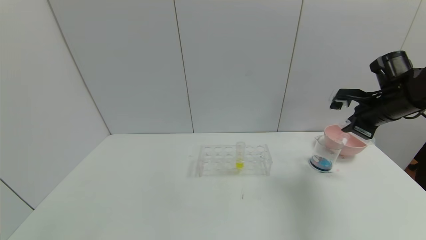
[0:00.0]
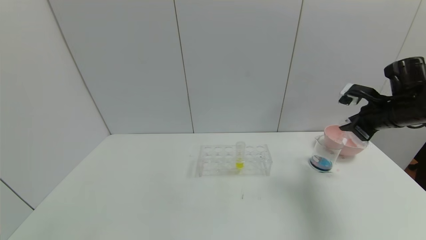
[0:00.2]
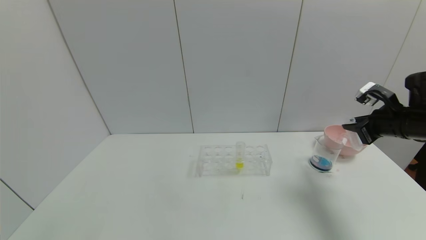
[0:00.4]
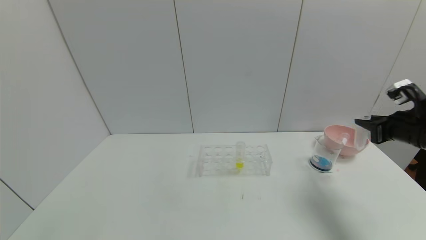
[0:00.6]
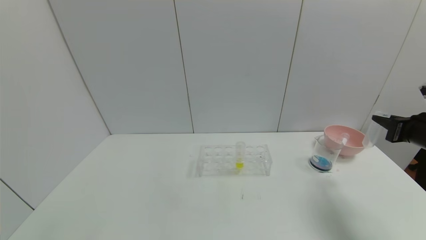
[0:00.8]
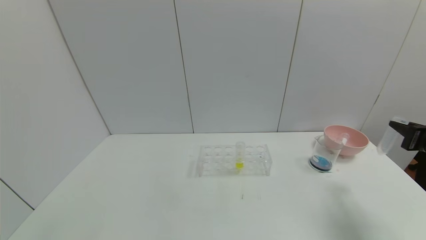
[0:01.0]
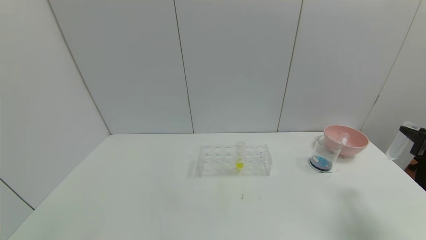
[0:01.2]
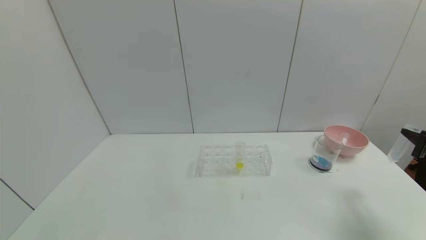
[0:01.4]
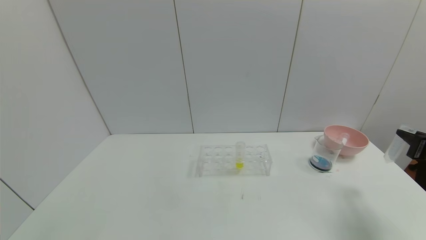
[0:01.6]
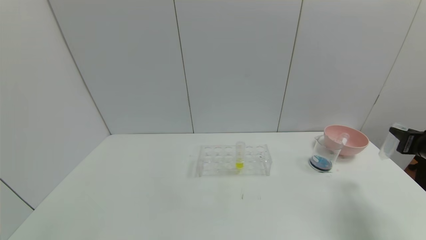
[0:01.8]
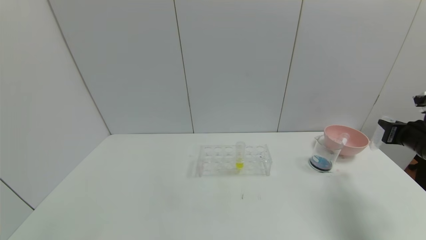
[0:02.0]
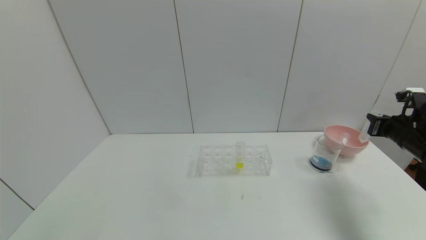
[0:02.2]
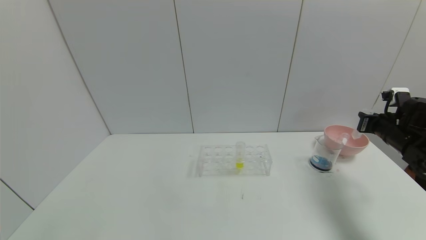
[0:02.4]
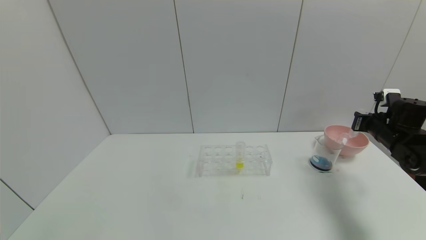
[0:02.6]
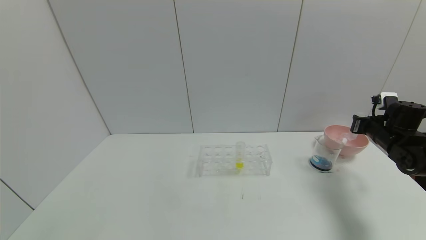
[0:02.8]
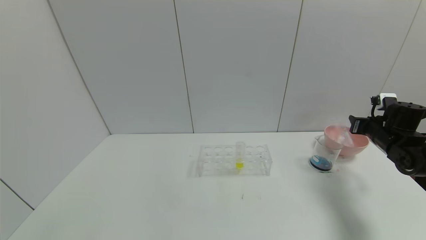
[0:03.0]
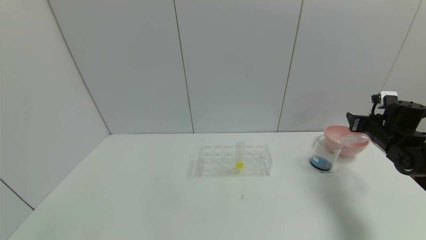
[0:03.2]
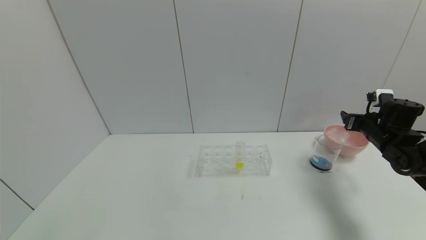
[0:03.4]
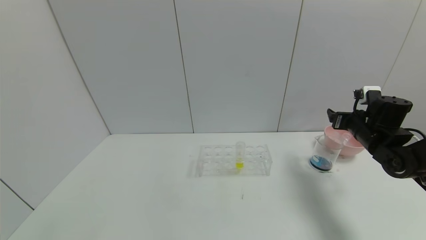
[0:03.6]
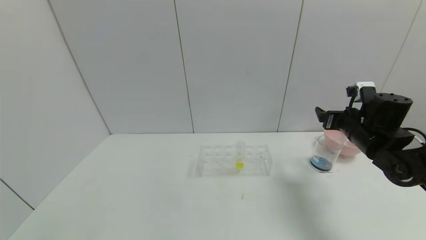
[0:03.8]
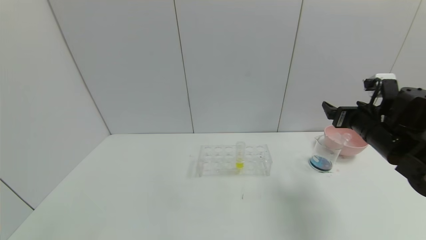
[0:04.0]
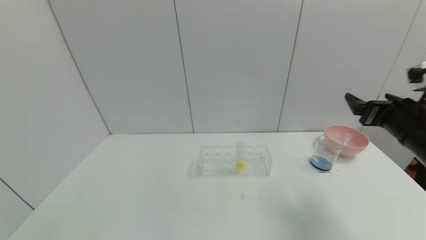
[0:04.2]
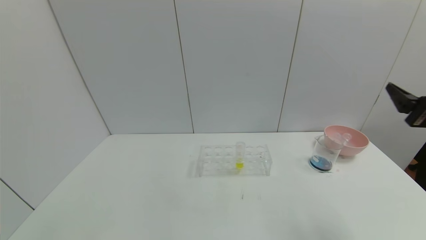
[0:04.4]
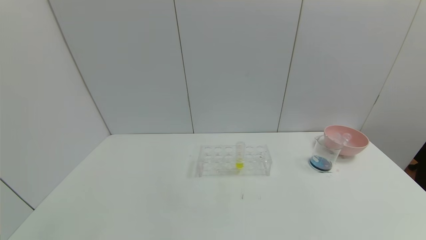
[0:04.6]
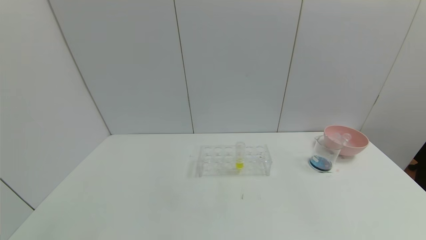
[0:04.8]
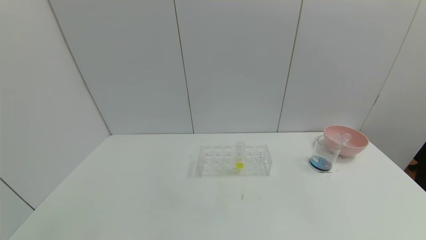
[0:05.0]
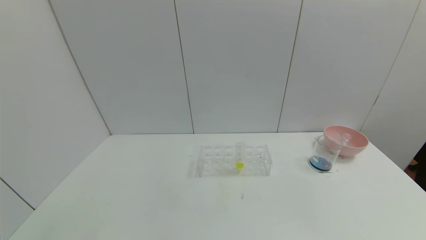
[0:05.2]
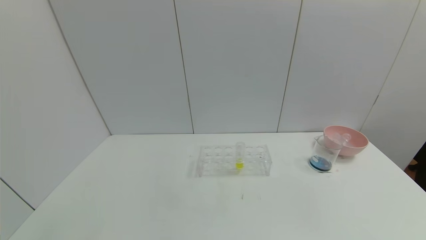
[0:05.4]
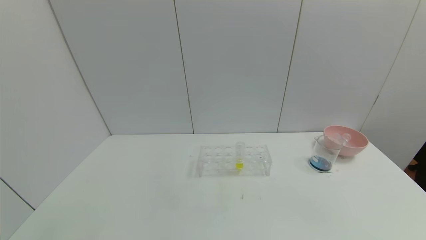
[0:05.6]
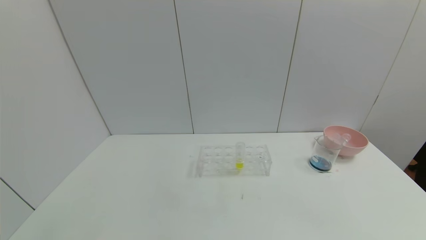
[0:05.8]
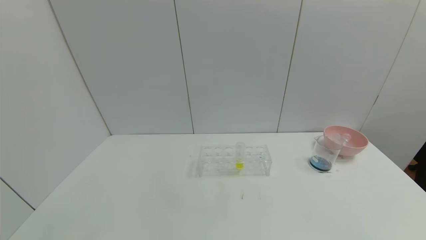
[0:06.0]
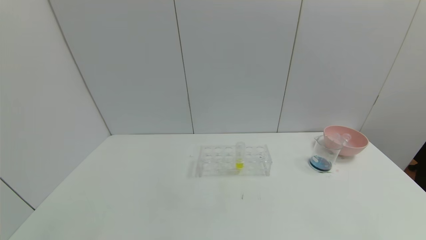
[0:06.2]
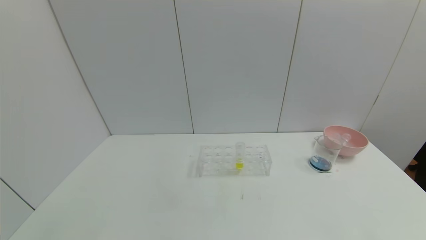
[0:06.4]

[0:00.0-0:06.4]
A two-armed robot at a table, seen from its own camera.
Task of the whole recording: pick up the test tube with red pigment and the test tube with blue pigment by grippers and pour them into the container.
Step, 0:00.0 to 0:03.4: Place the test tube into the bowl with the right gripper.
0:00.0 to 0:01.6: The right gripper moves backward, to the right and downward, about 15 cm.
0:01.6 to 0:03.2: The right gripper moves forward, roughly 15 cm, and opens up.
0:03.2 to 0:04.8: The right gripper travels backward by roughly 35 cm.
